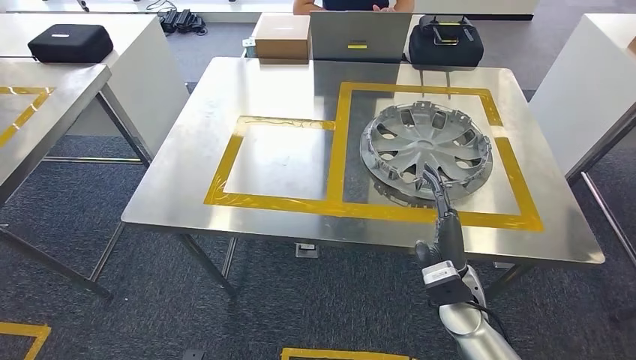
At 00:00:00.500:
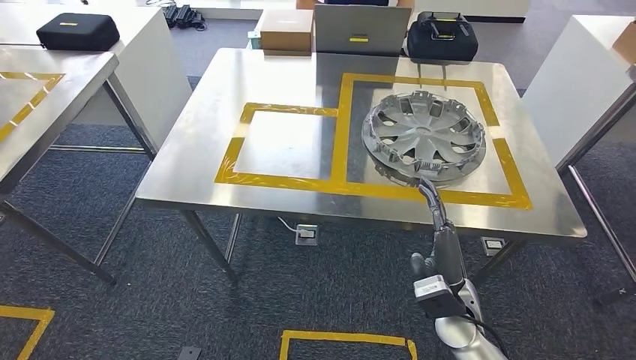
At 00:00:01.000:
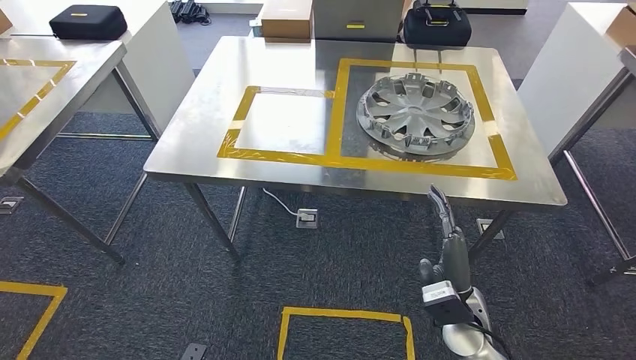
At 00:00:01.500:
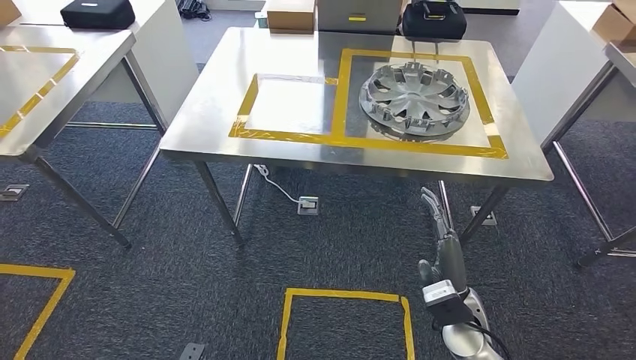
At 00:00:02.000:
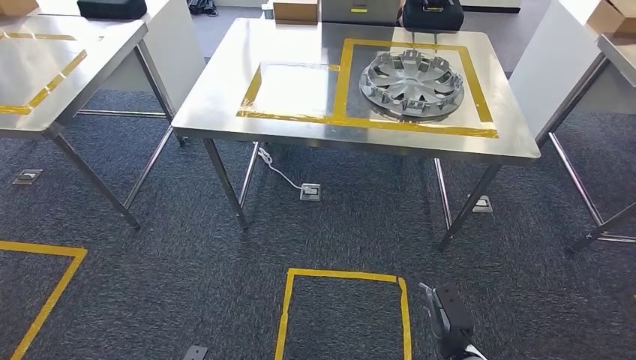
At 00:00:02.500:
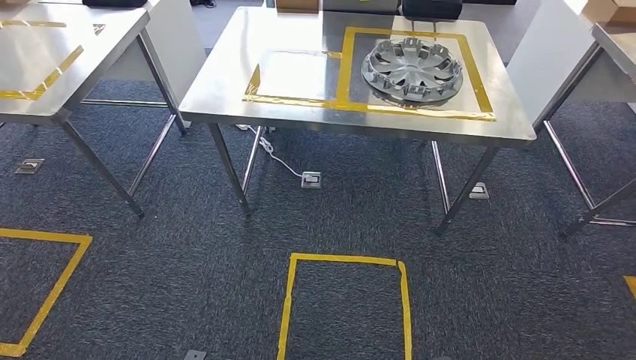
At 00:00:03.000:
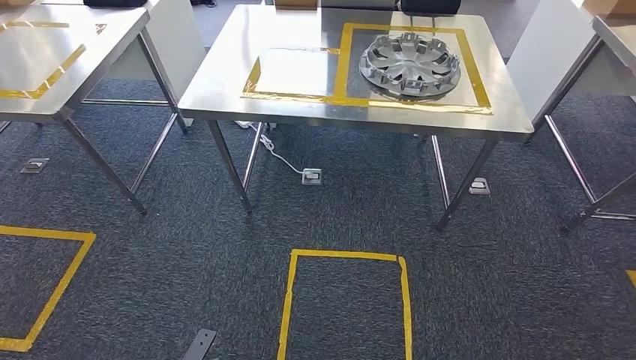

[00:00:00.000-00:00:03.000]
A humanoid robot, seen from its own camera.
Step, 00:00:00.000 to 00:00:03.000: Return to the initial position at the workbench.
